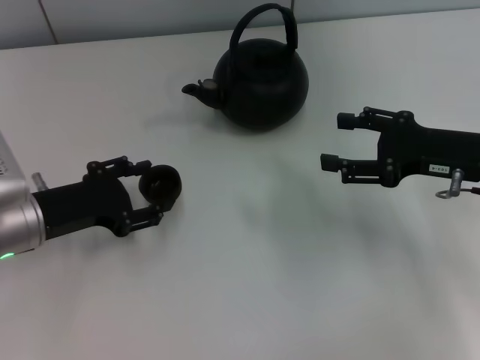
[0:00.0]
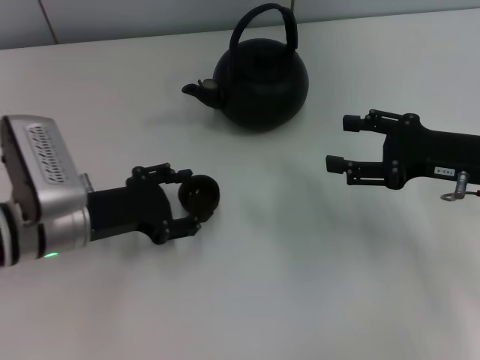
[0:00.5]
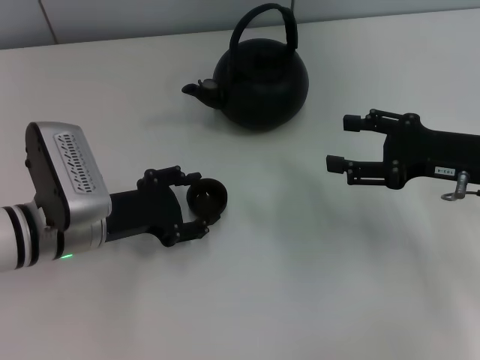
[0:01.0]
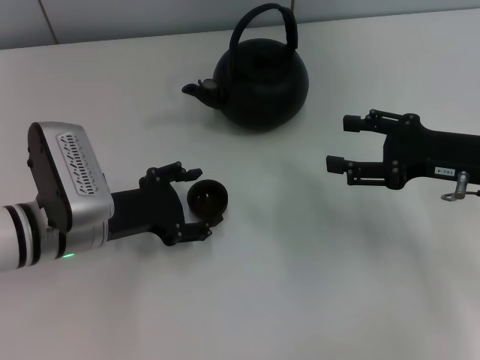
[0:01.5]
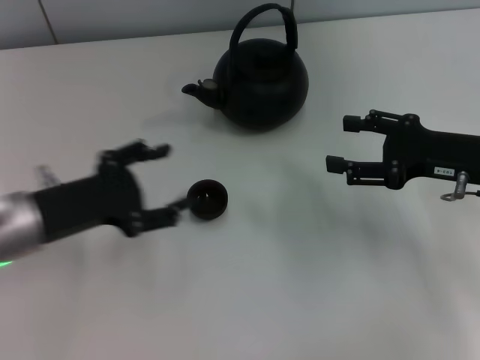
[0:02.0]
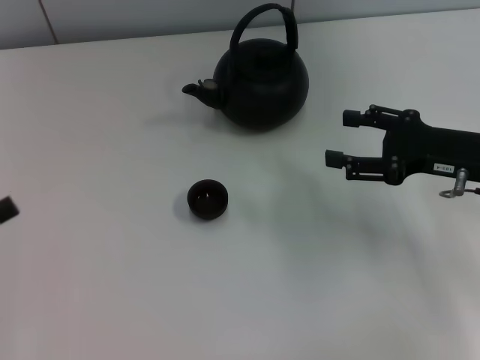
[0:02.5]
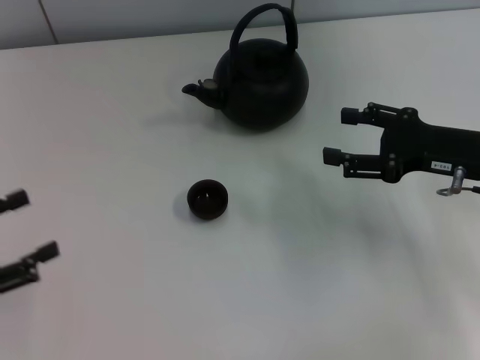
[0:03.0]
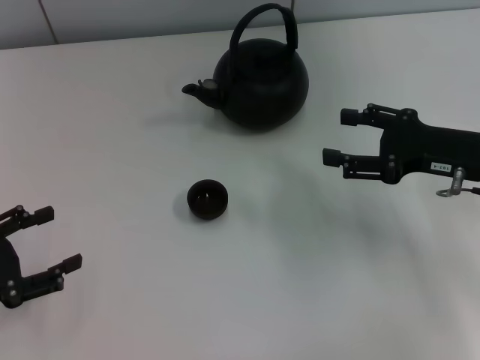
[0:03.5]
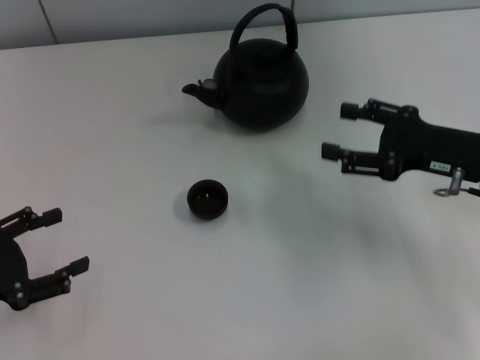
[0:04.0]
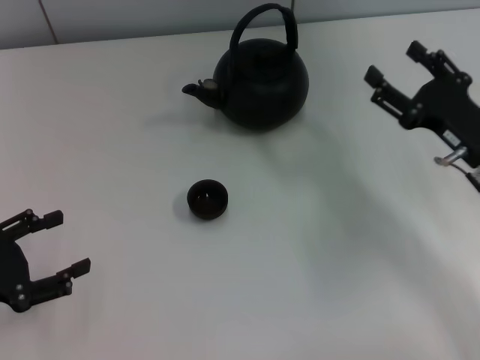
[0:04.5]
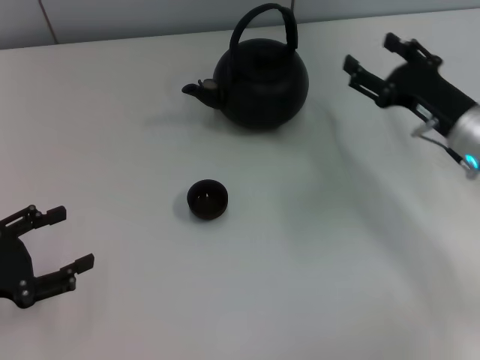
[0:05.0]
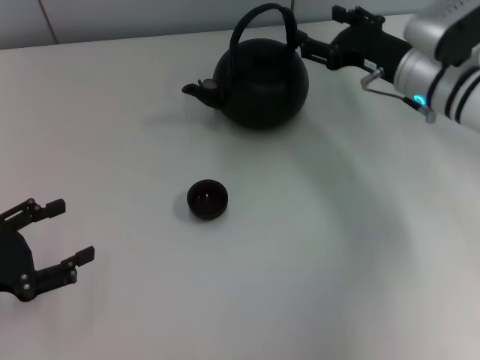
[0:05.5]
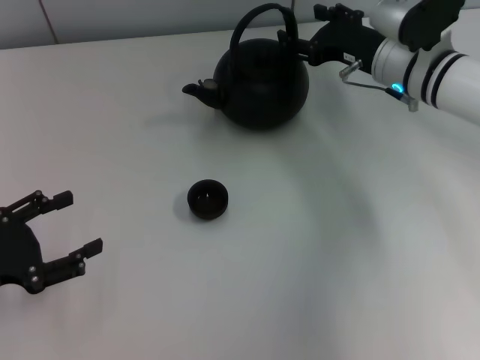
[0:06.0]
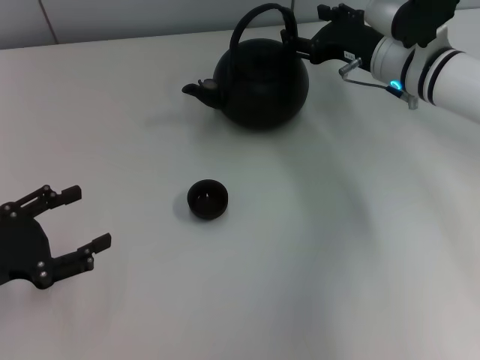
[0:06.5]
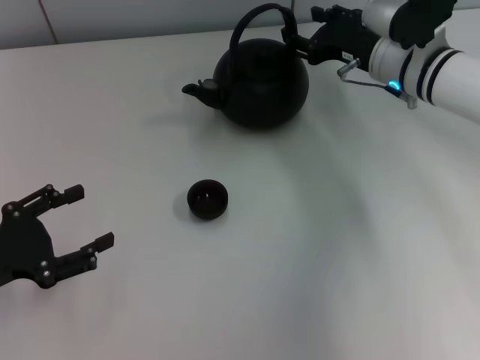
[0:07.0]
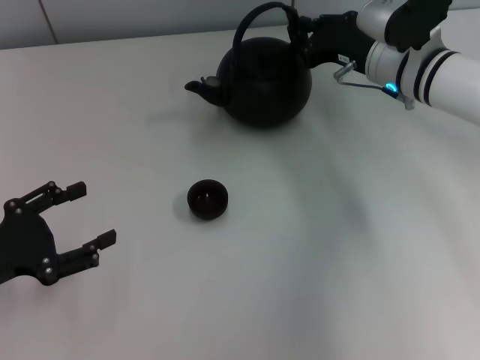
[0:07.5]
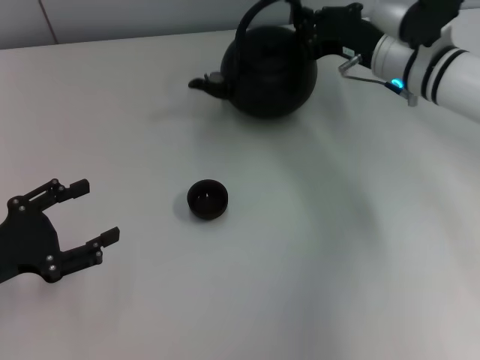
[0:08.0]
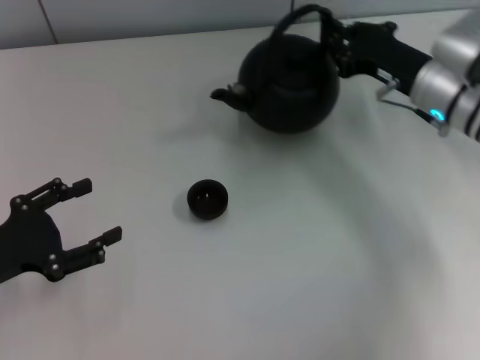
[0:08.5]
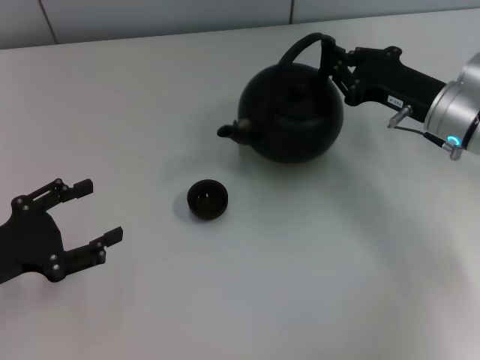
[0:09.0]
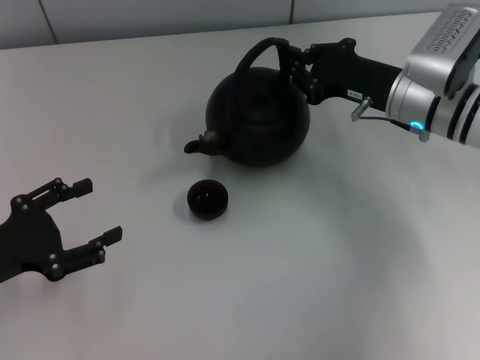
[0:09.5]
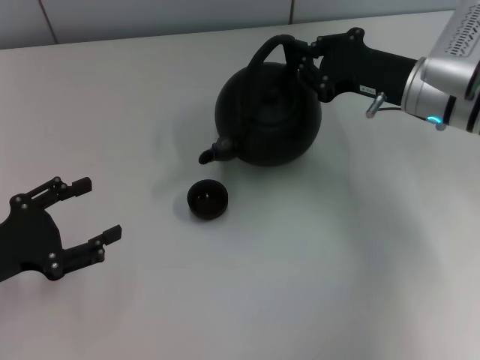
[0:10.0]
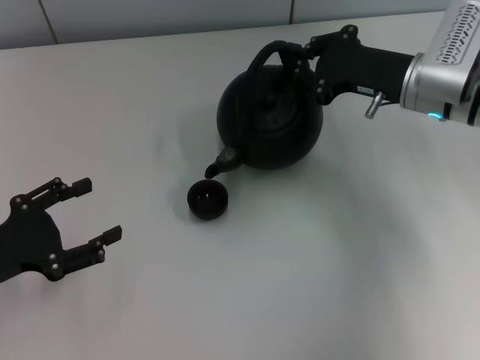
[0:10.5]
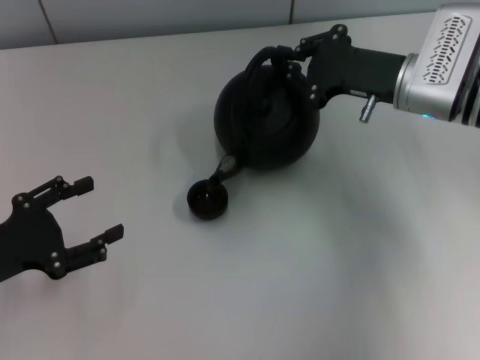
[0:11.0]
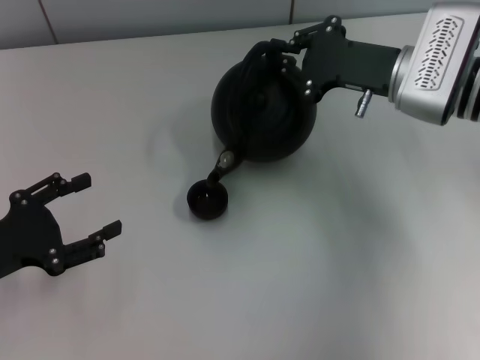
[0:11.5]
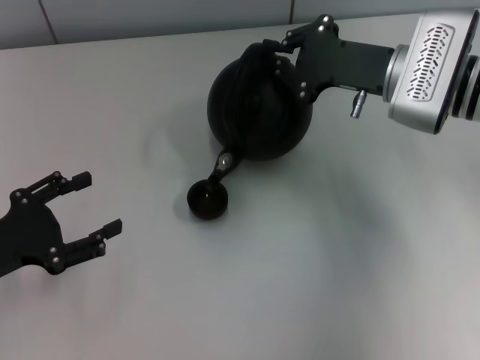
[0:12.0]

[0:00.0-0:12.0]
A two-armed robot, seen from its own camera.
Task of the whole recording: Grasp the handle of the teapot with one hand and pour tea into the teacup.
Step, 0:00.0 to 0:01.5: Place the teacup in the center of view with the left gripper.
Step, 0:02.0 to 0:09.5: Pick up the teapot with the right gripper.
0:00.0 to 0:02.0: The left gripper opens.
0:02.0 to 0:04.0: The left gripper heads to the left and backward, covering some 10 cm.
0:04.0 to 0:06.0: The right gripper goes roughly 15 cm forward and to the left.
0:06.0 to 0:08.0: The right gripper closes its fingers.

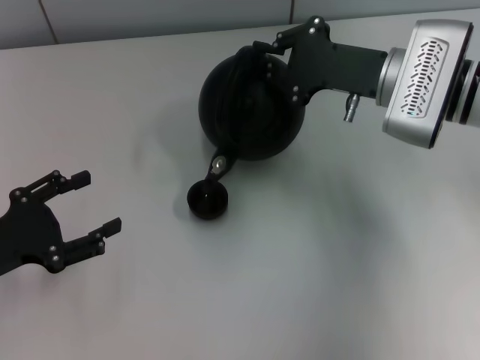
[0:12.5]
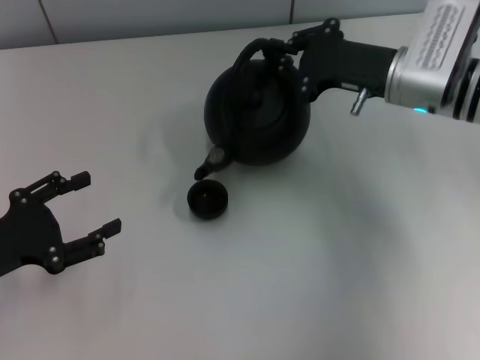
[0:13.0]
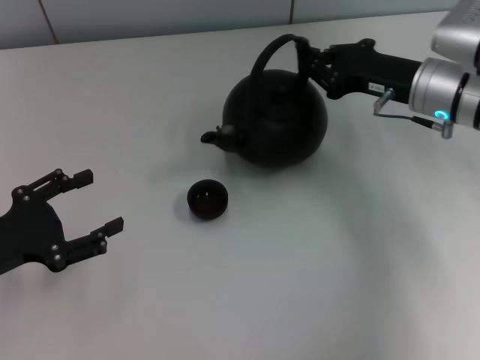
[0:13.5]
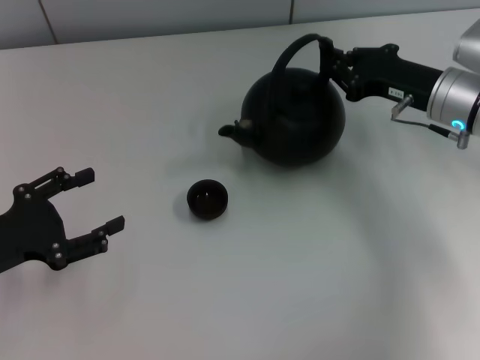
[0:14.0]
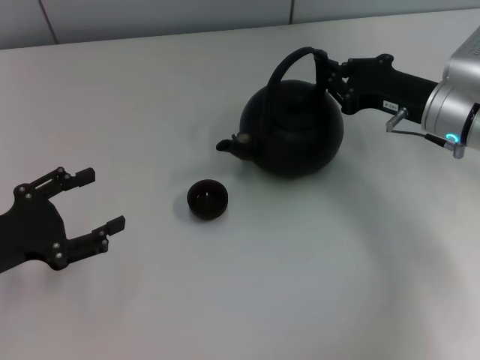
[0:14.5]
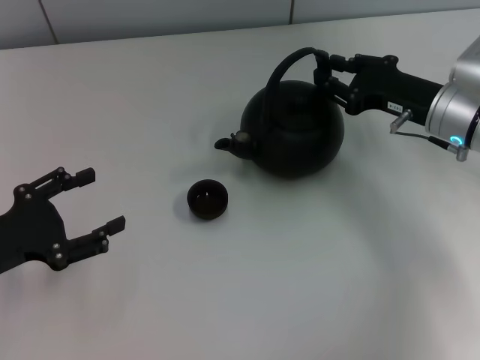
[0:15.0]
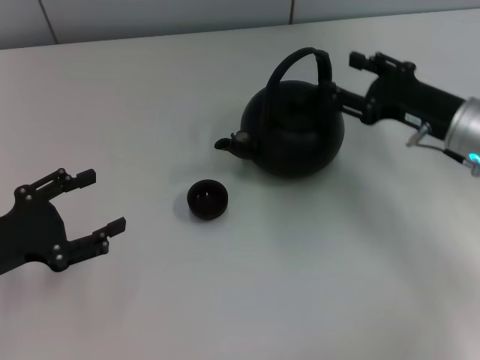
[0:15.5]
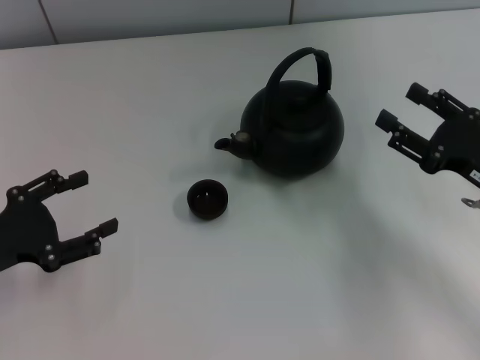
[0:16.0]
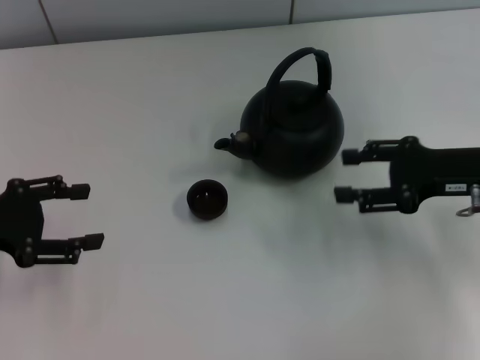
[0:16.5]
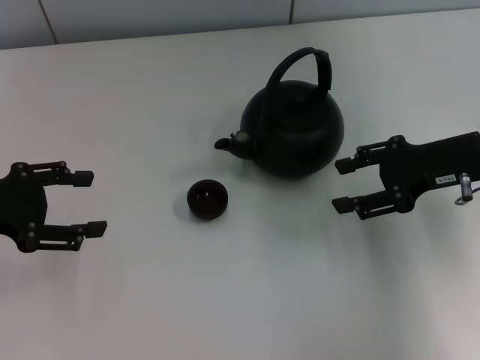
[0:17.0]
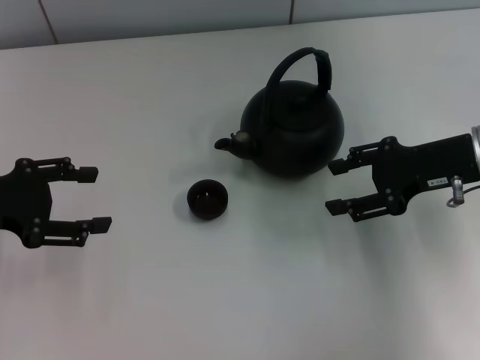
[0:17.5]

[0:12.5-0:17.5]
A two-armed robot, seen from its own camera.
Task of the whole recording: Grasp the handle of the teapot with one hand and pour tea into the teacup.
Step, 0:13.5 to 0:16.5: Put down the teapot with the right gripper.
0:12.5 to 0:15.0: The right gripper shifts some 5 cm to the right.
0:15.0 to 0:17.5: The left gripper shifts roughly 10 cm forward and upward. The right gripper reaches approximately 10 cm backward, then returns, and opens its fingers.
